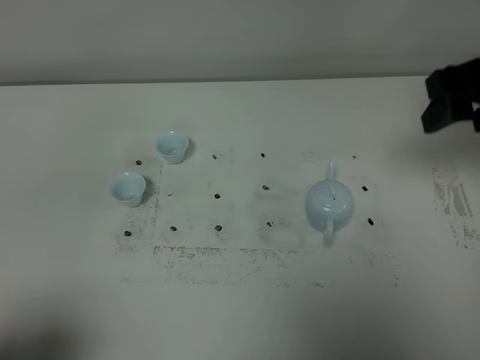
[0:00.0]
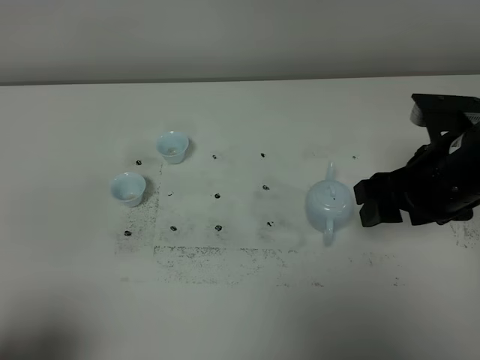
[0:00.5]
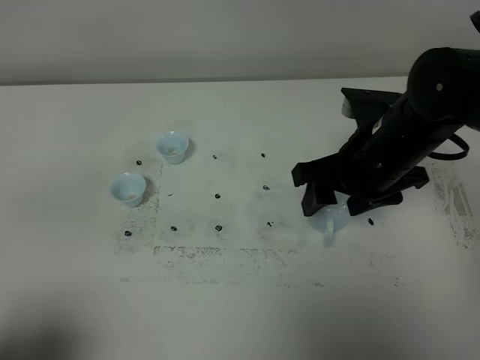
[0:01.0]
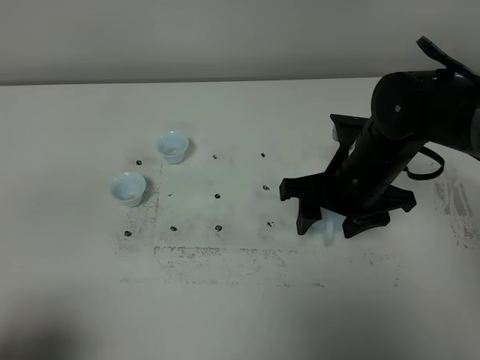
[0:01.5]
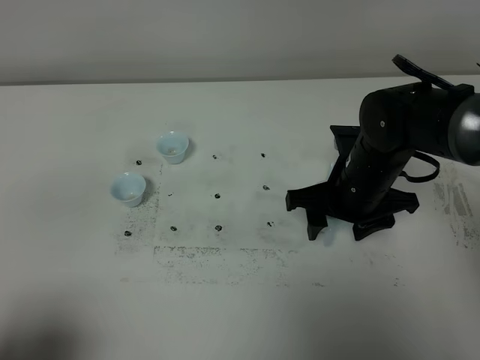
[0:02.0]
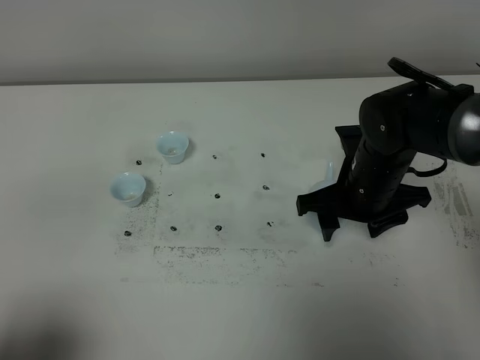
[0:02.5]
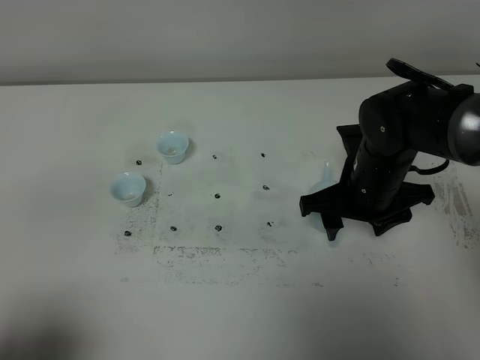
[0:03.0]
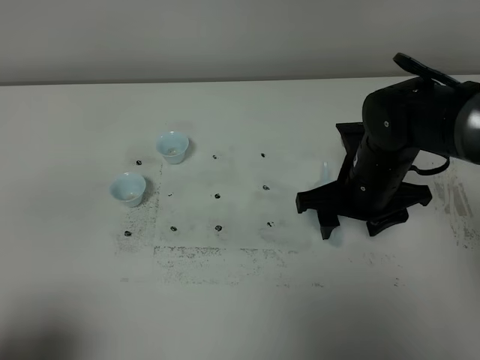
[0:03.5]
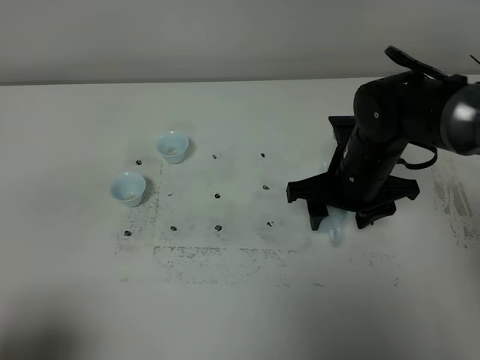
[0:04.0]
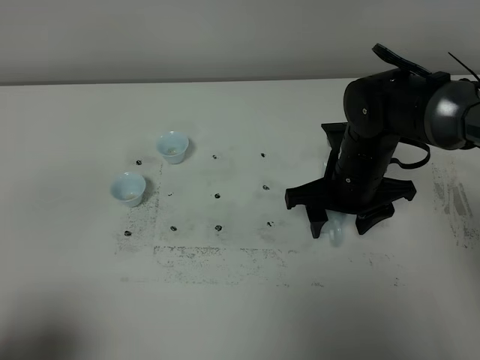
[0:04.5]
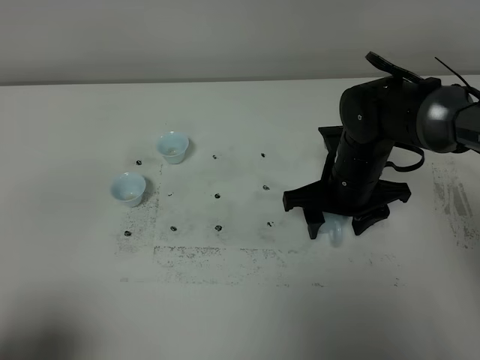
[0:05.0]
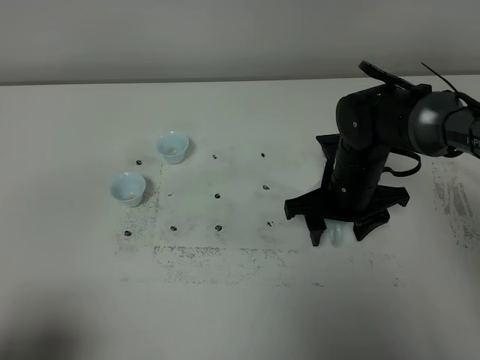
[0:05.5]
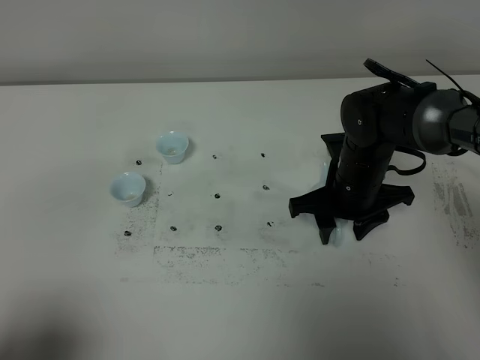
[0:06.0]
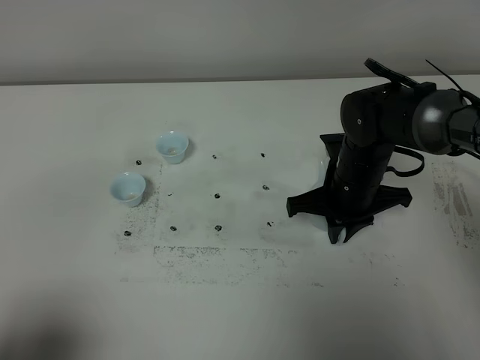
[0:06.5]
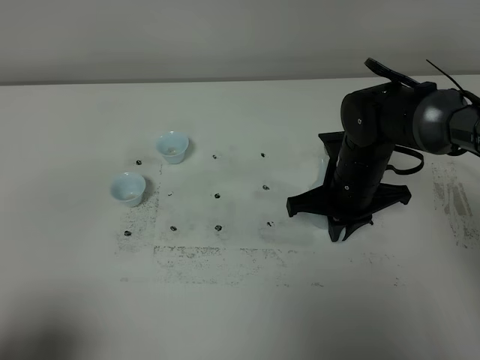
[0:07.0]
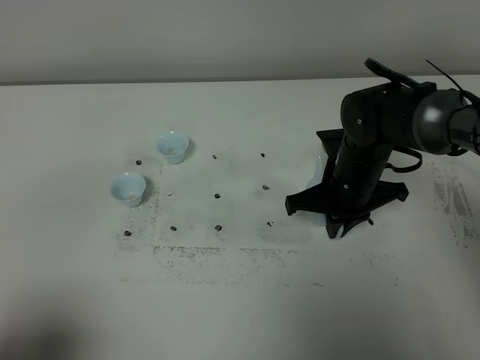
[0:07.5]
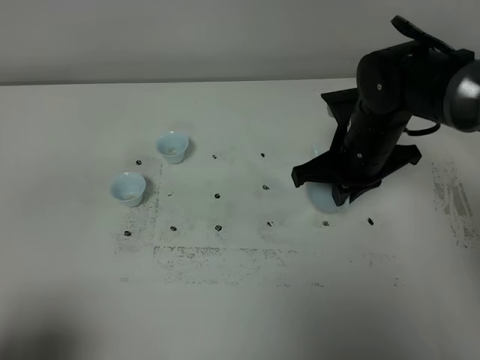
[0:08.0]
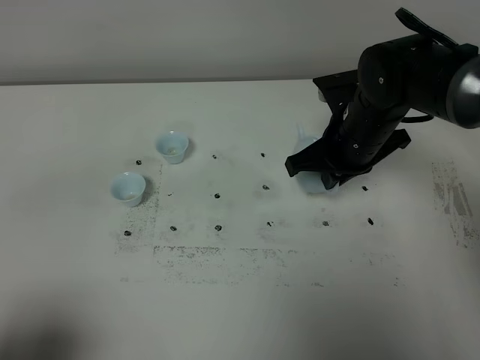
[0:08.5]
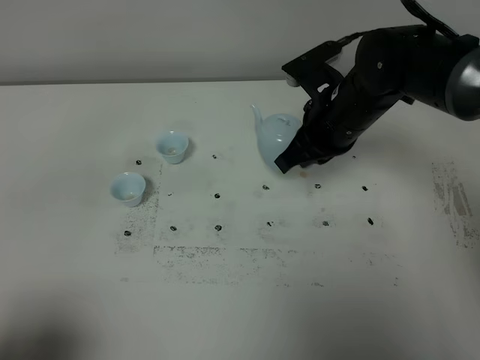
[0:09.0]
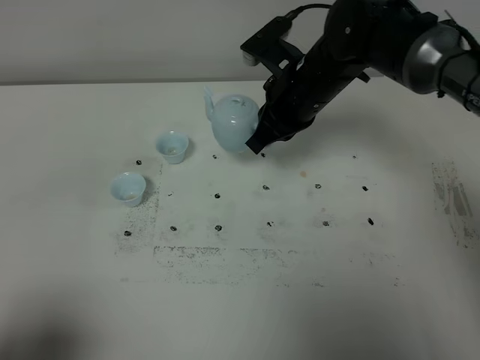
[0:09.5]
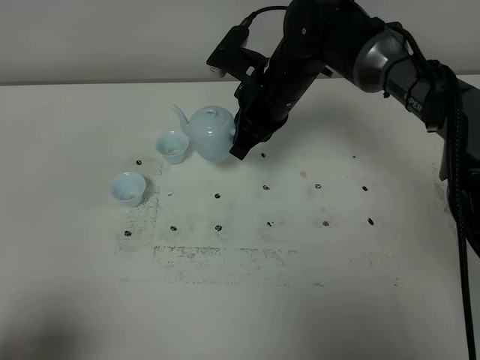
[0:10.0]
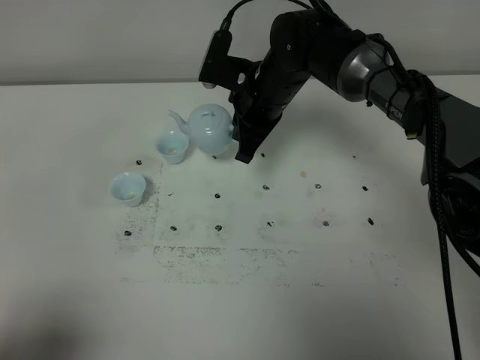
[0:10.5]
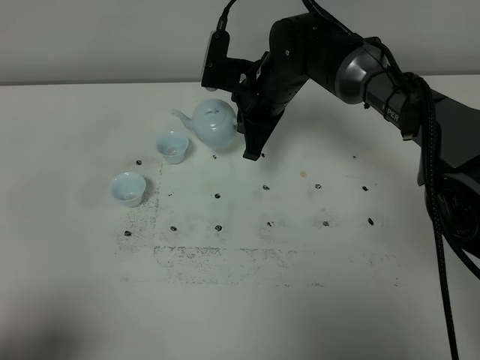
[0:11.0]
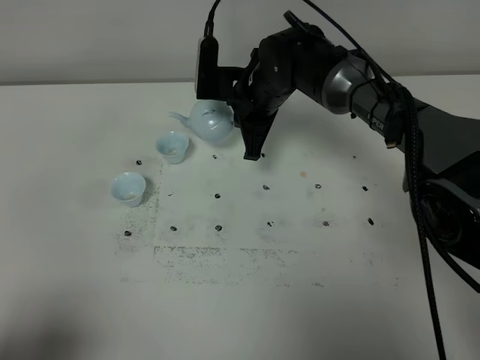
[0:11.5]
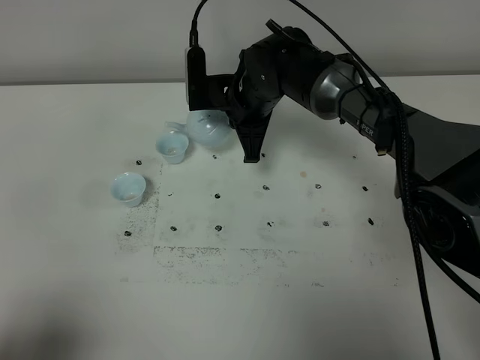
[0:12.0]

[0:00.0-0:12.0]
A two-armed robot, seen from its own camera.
Task of the whole recording: grasp the blue porcelain teapot and pour the tea into the two blue porcelain teacups one by one, put the blue porcelain teapot back in its original place.
Step, 0:00.0 to 0:07.5: Pick up the teapot with the right gripper.
0:00.0 to 0:02.0: The right gripper travels downward and to the left by approximately 20 cm.
0:02.0 to 0:06.0: The grippers stay close to where they were, moving slightly.
0:06.0 to 0:08.0: The right gripper travels upward by about 5 cm, and closes up.
0:08.0 to 0:10.0: The right gripper shifts roughly 10 cm to the left and forward.

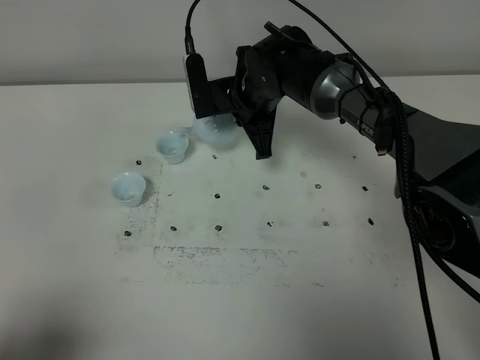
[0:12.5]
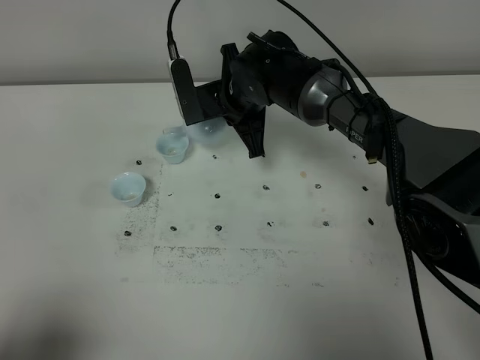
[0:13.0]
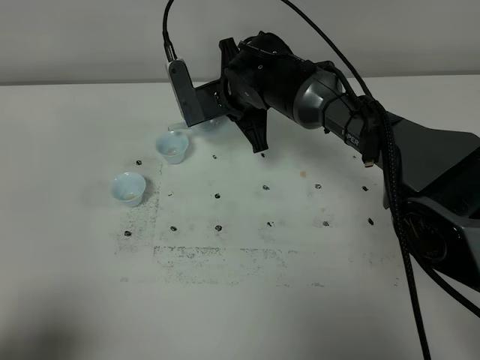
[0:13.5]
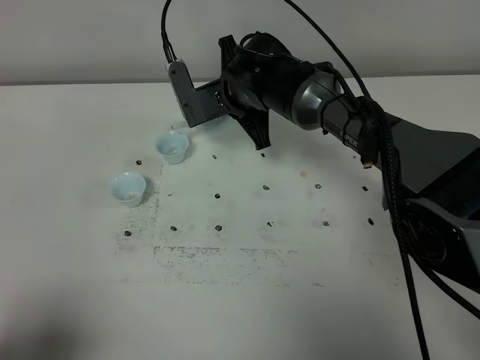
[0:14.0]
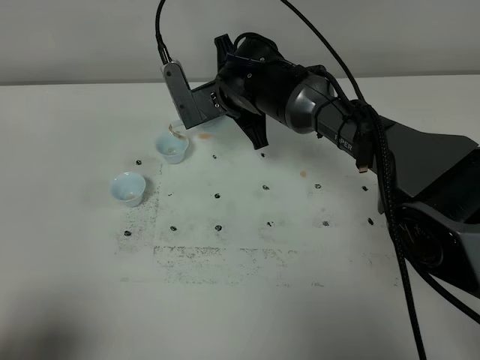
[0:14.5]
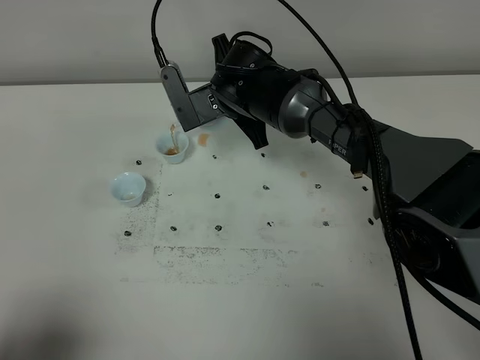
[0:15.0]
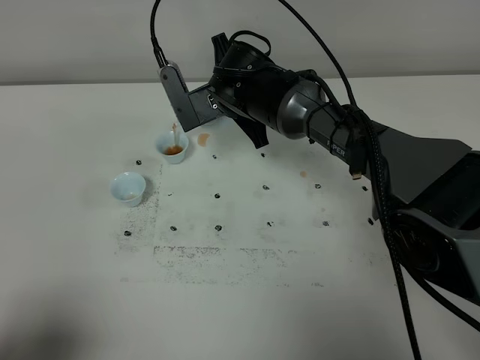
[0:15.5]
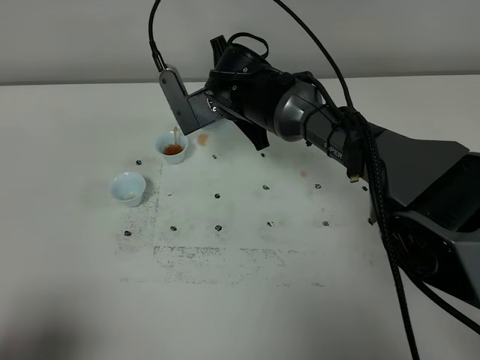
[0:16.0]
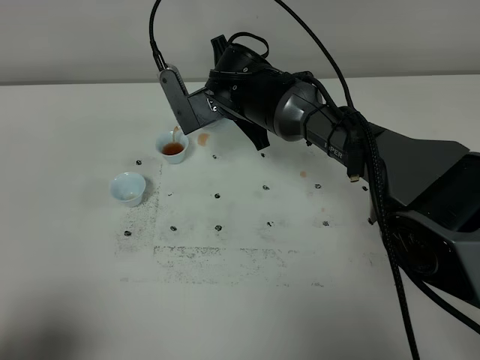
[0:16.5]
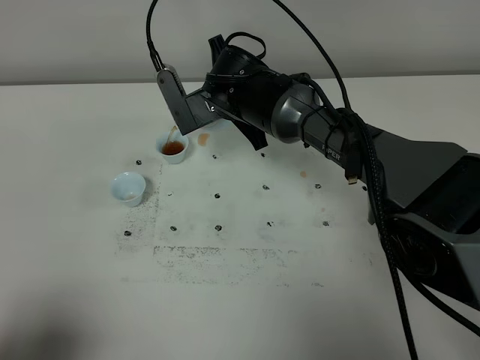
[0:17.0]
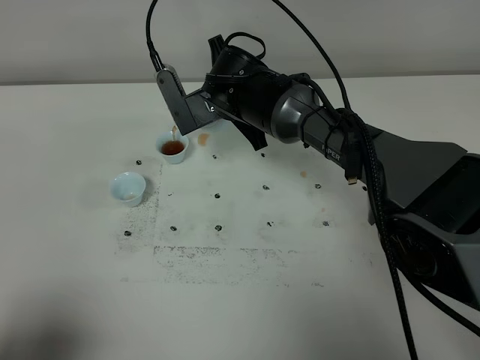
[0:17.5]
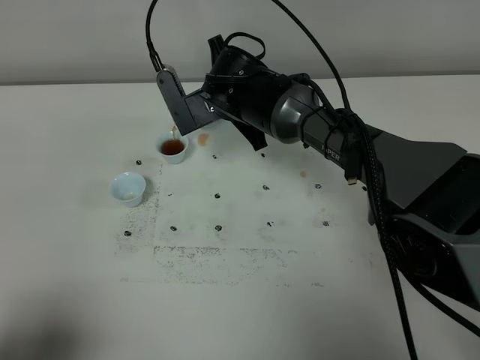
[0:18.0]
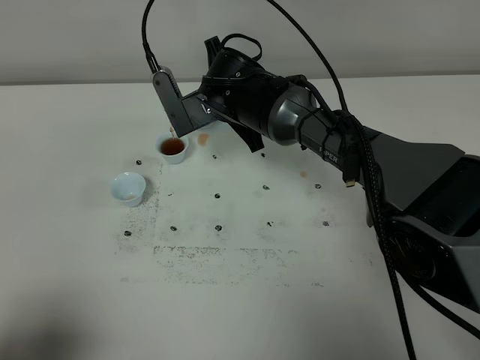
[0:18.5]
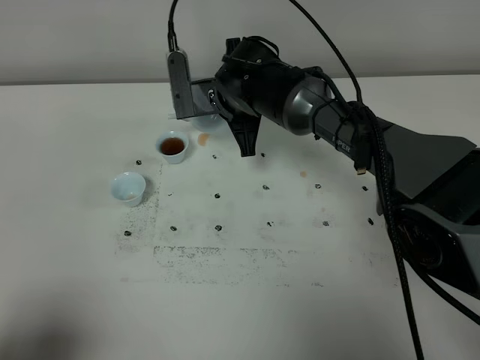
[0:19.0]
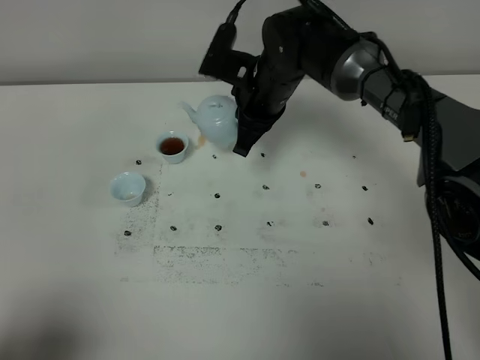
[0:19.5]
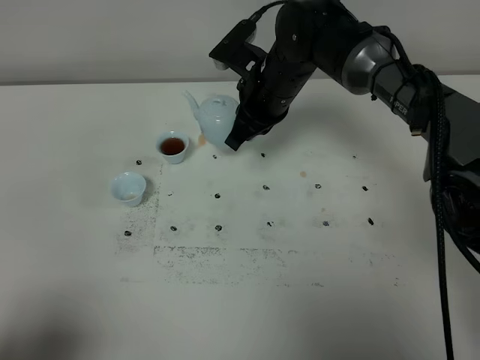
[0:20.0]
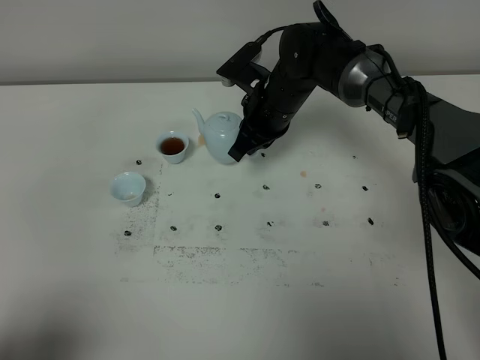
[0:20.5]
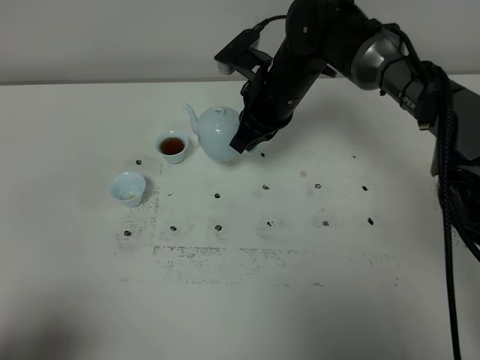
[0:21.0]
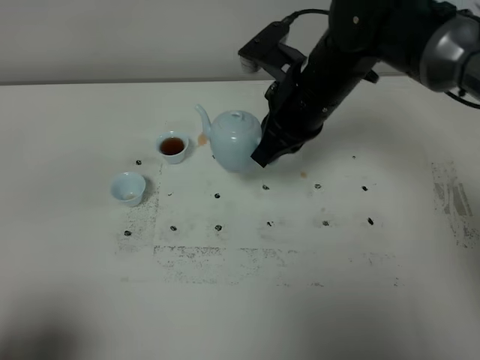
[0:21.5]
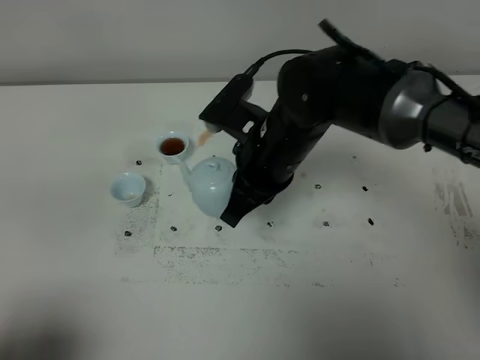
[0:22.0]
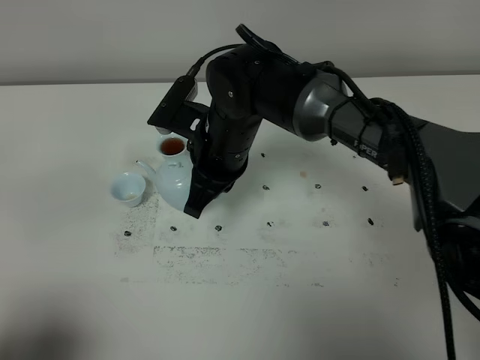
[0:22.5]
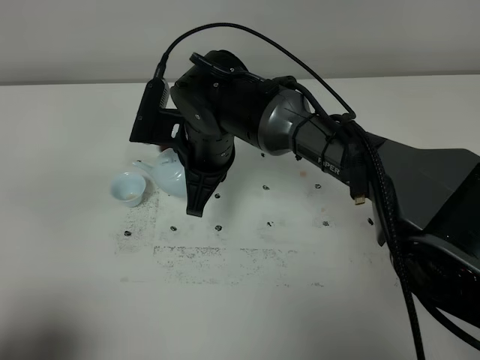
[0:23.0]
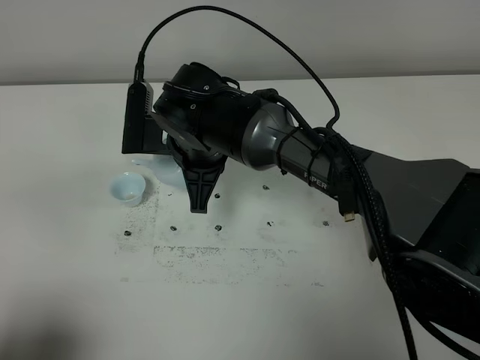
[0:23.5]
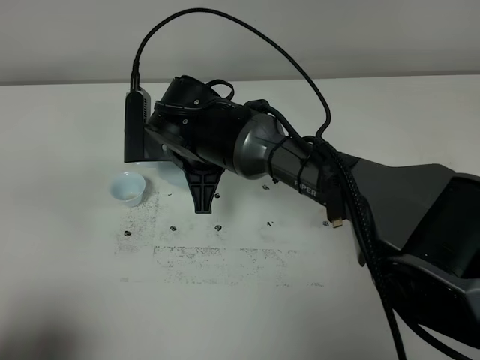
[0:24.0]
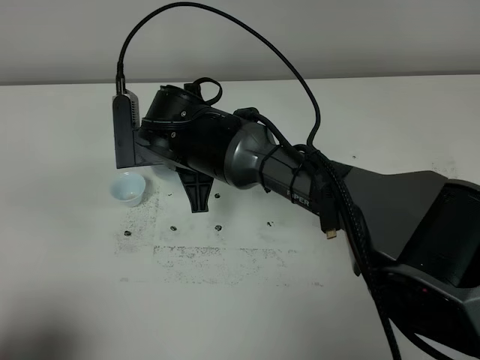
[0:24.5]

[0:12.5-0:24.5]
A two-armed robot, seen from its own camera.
Task of the whole recording: grasp the blue porcelain teapot and pour the tea into the two blue porcelain teacups one by one, put the blue porcelain teapot back in its original place.
0:12.5 to 0:14.5: The grippers move only a little.
0:14.5 to 0:16.5: The grippers stay close to where they were, moving slightly.
0:16.5 to 0:18.5: The two grippers keep their place.
0:18.5 to 0:20.5: The right gripper goes roughly 5 cm to the right.
0:20.5 to 0:22.5: The right gripper is displaced backward and to the left by some 10 cm.

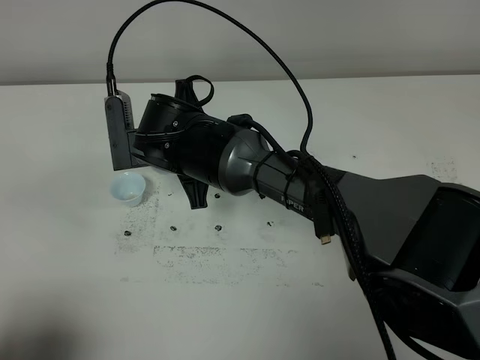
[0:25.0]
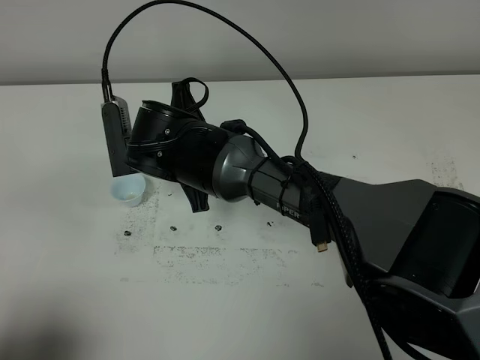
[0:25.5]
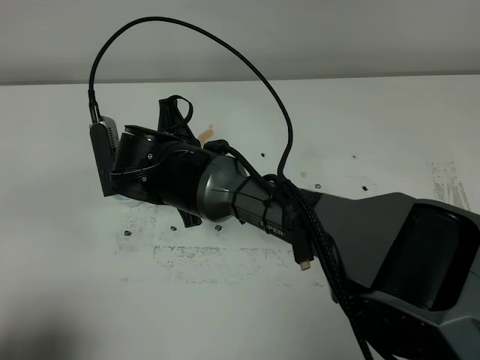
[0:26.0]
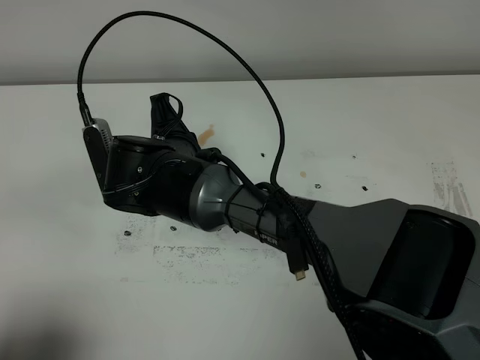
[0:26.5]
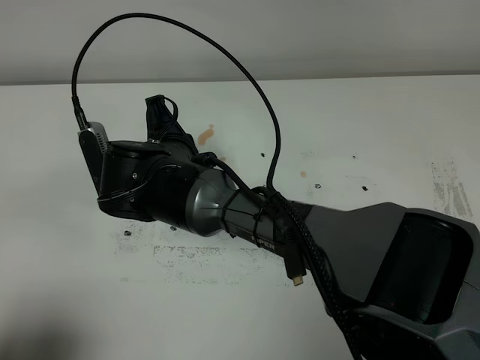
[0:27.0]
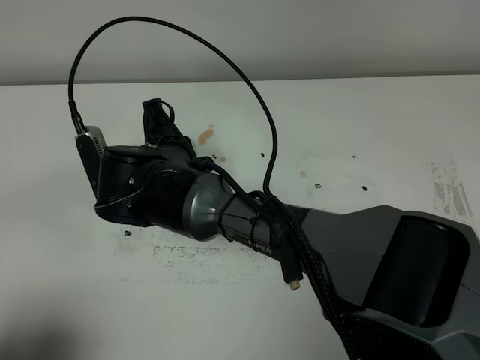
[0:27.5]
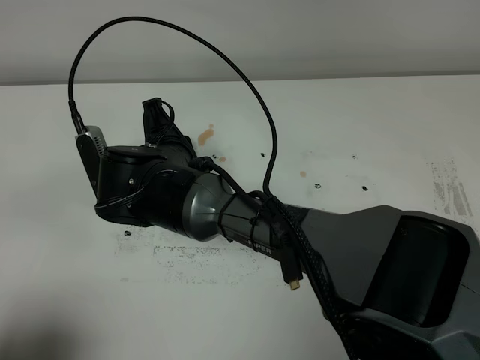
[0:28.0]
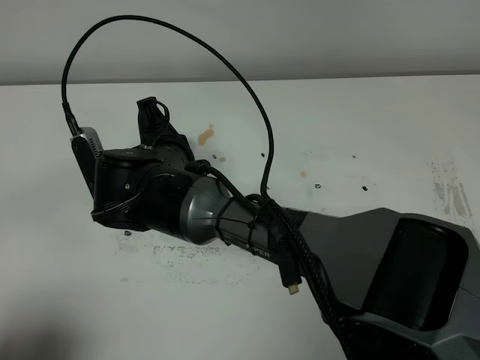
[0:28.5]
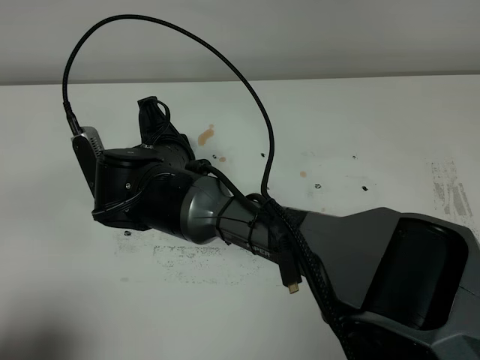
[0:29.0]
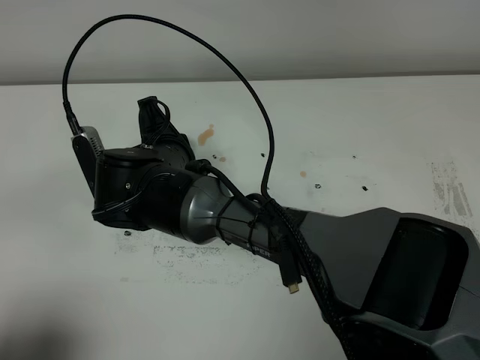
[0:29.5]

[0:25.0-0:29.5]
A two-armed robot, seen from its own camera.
Task of the whole recording: grasp the blue porcelain teapot and pour the tea into the two blue porcelain teacups one by one, put the blue porcelain teapot back in its original place.
0:27.0 to 0:29.5: Both grippers stay about where they are.
